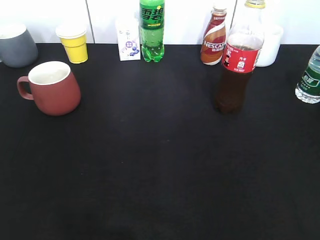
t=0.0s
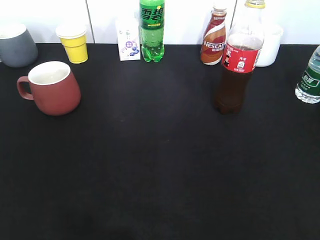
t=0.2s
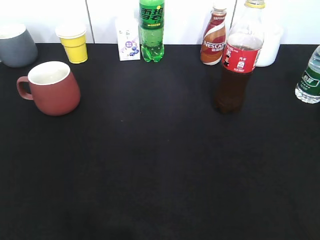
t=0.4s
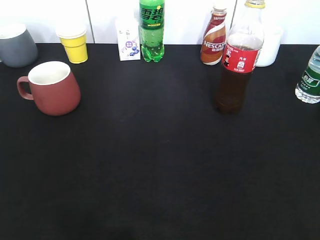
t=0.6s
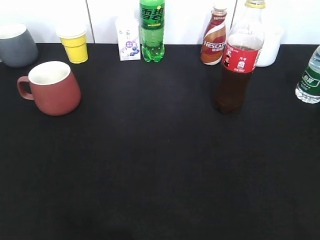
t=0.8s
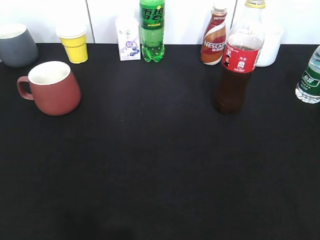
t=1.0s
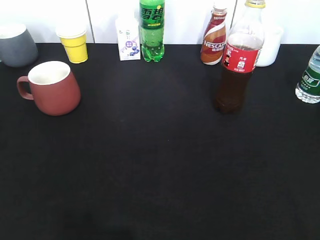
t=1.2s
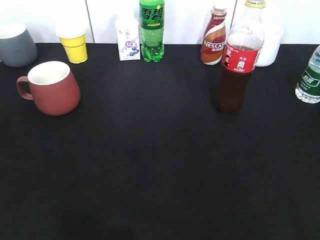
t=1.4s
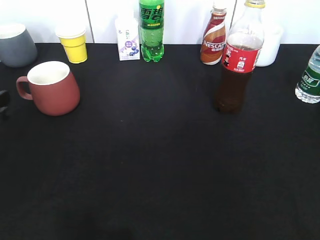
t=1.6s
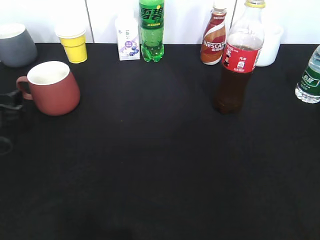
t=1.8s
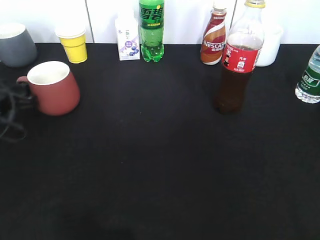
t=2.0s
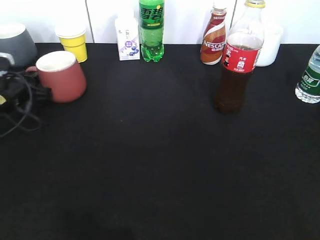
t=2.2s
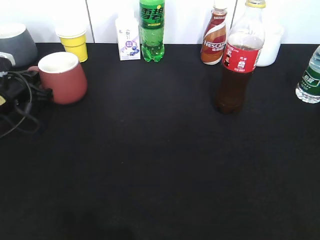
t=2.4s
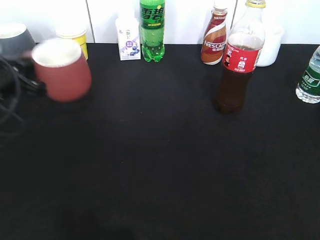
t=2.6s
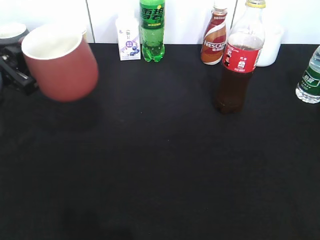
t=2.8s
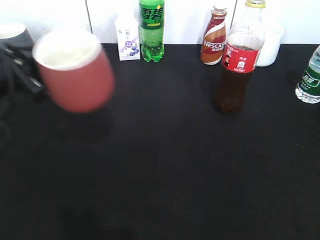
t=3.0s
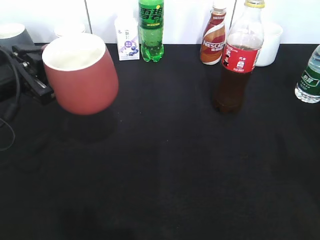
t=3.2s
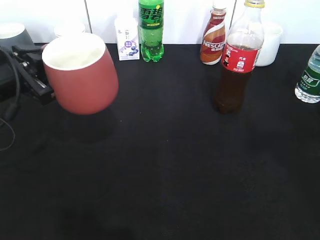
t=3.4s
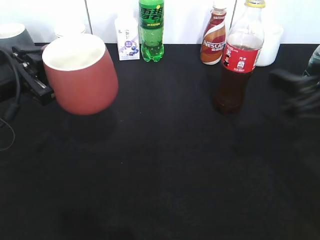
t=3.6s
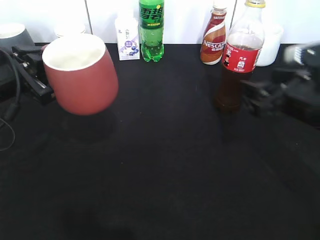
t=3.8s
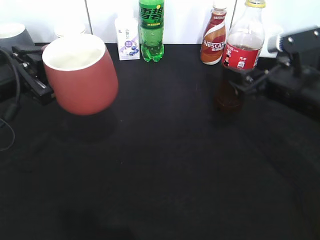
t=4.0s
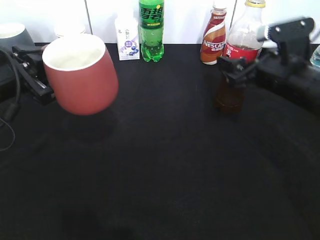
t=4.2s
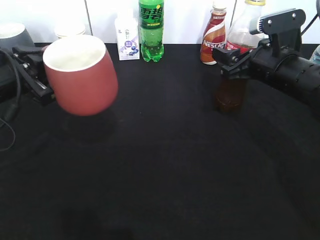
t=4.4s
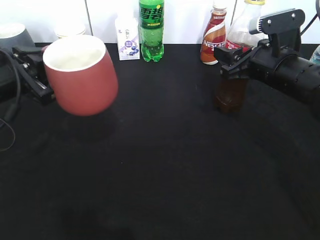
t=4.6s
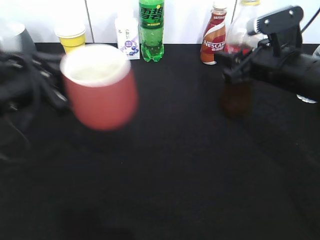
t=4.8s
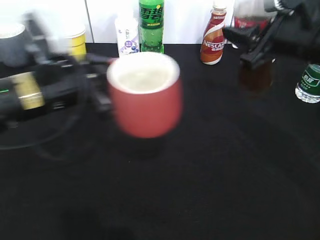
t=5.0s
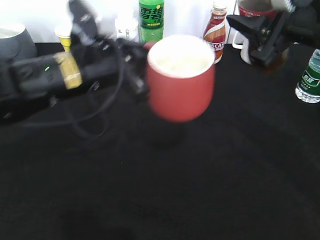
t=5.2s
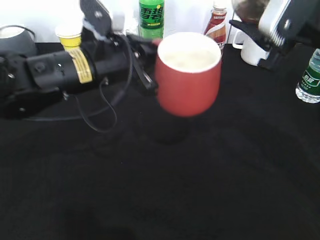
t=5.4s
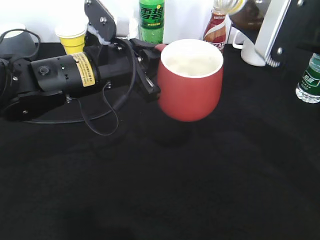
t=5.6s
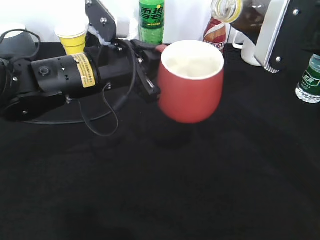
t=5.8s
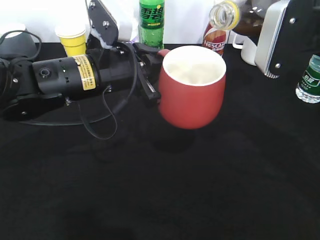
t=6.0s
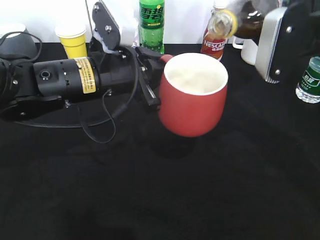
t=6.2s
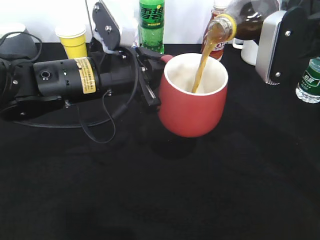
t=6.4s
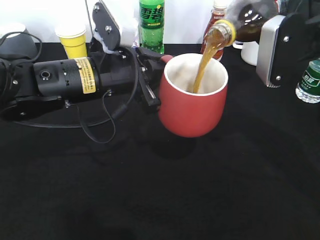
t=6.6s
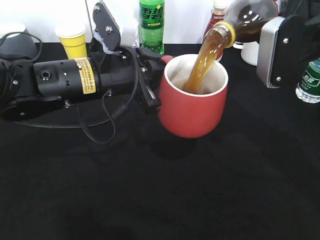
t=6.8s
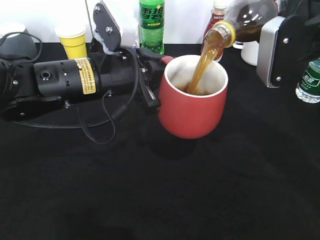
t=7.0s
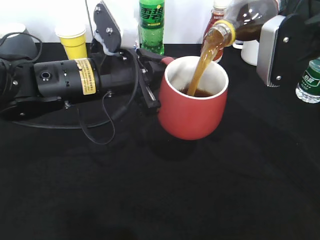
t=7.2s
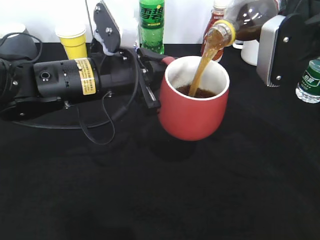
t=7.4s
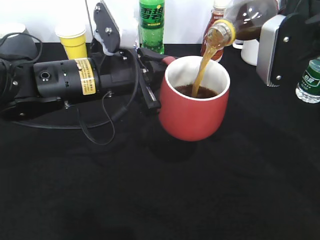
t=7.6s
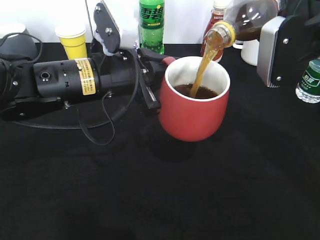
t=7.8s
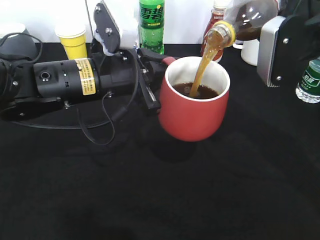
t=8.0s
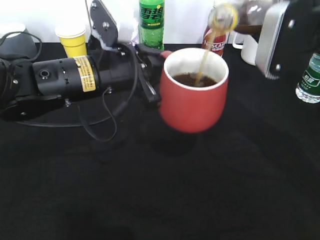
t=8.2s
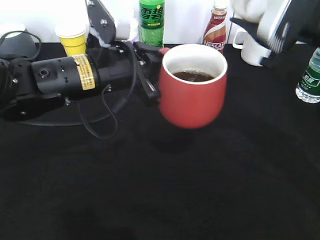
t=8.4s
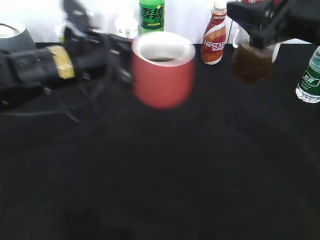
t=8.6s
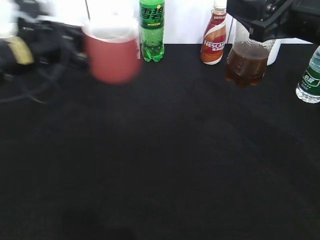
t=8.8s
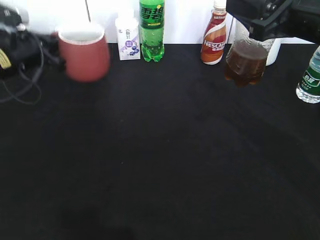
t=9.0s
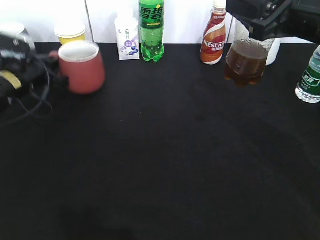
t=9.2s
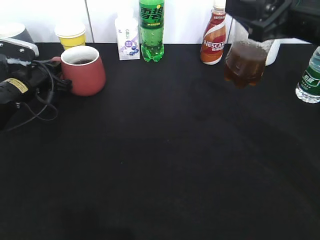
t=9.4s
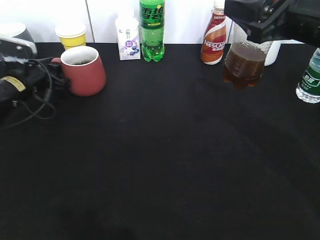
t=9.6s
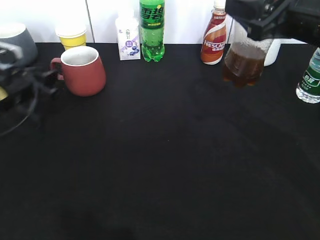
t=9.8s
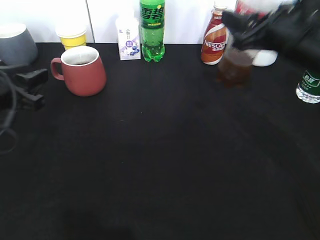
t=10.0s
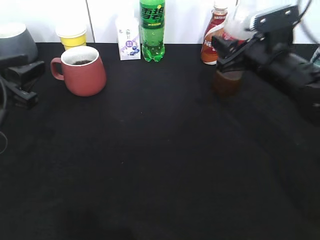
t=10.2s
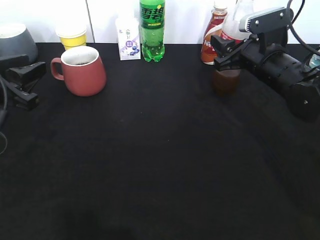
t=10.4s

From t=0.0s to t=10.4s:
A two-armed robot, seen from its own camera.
Step, from t=0.6s to t=2.2s: Grasp the red cup with left gripper.
Step, from t=2.4s to t=3.2s: Lift the red cup with left gripper.
Step, from t=3.6s to t=4.6s: Grasp the bottle with cola with right gripper.
Step, from t=4.8s to t=8.2s: Pour the cola from bottle to cup with right gripper.
From t=1.4s to t=3.0s: The left gripper moves to the right, approximately 10 cm, reaches approximately 15 cm forward, then returns, and closes.
From t=3.0s to t=4.4s: The right gripper moves forward, about 35 cm, and opens, then closes once more.
From t=4.4s to t=6.0s: The right gripper shifts about 10 cm upward and backward, and closes its fingers. Meanwhile the left gripper travels to the right by some 15 cm.
From t=6.0s to t=7.4s: The grippers move only a little.
From t=7.4s to t=9.0s: The left gripper travels to the left and forward by about 20 cm.
From t=9.0s to t=10.4s: The left gripper moves backward, some 10 cm, and opens. The right gripper moves downward and forward, some 15 cm.

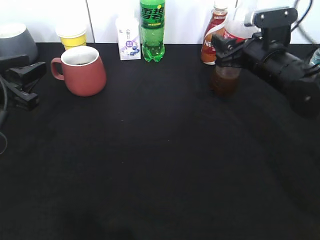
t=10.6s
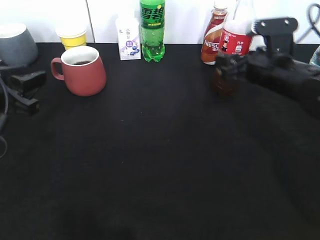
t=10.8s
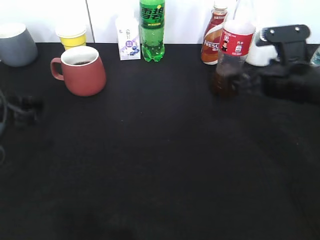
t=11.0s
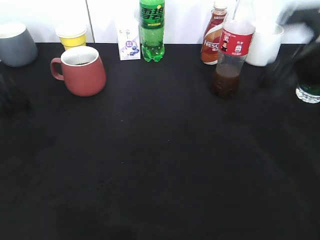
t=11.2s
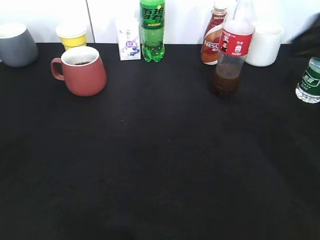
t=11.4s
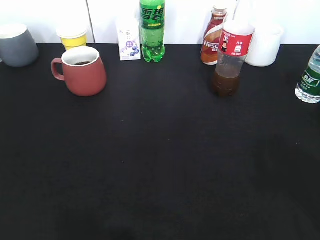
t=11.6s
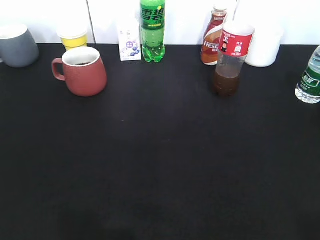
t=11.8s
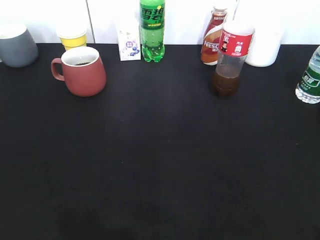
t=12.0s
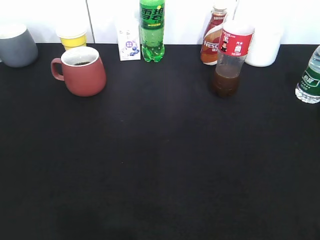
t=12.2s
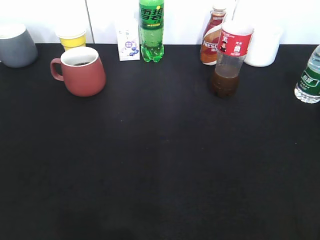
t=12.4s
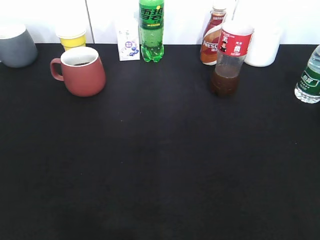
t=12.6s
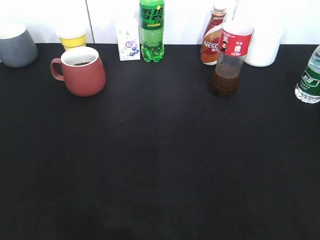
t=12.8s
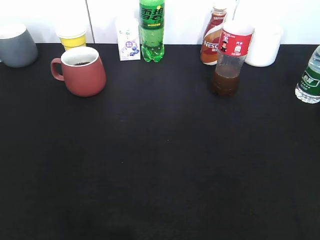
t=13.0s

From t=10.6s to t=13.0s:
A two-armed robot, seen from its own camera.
From t=10.6s to t=11.8s: Both grippers travel together backward, roughly 30 cm.
